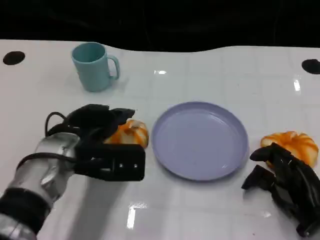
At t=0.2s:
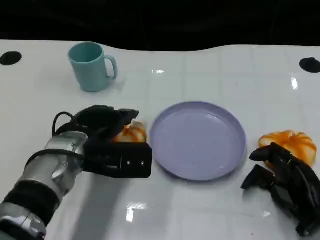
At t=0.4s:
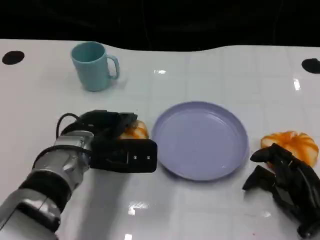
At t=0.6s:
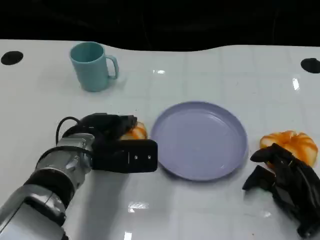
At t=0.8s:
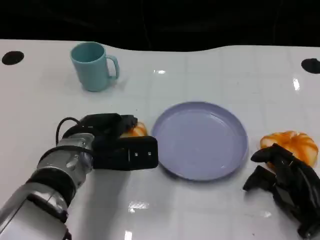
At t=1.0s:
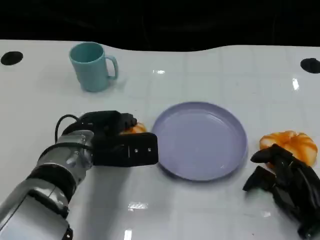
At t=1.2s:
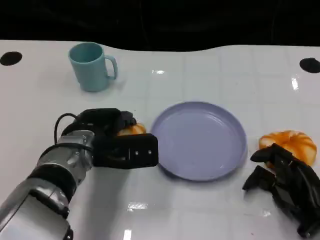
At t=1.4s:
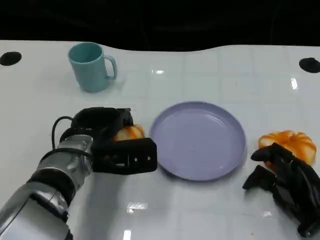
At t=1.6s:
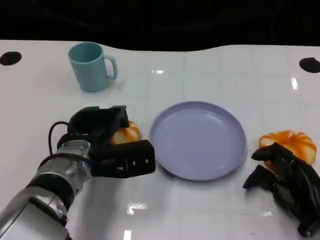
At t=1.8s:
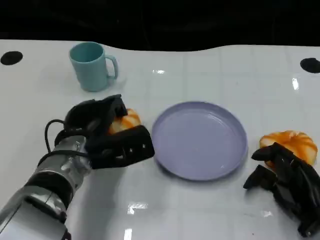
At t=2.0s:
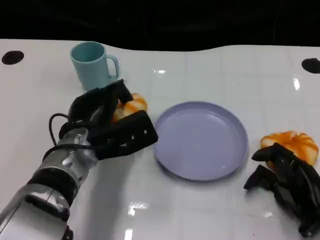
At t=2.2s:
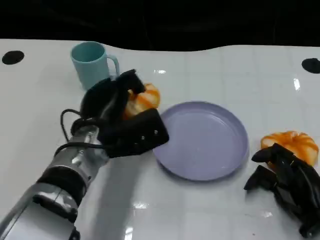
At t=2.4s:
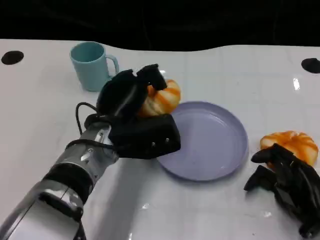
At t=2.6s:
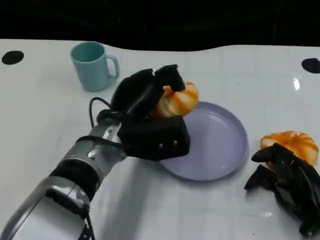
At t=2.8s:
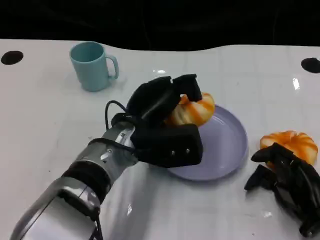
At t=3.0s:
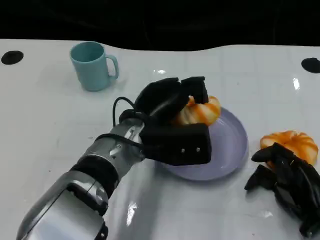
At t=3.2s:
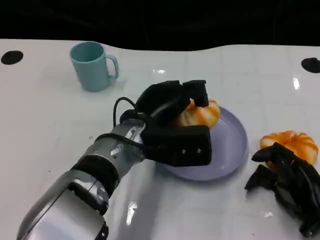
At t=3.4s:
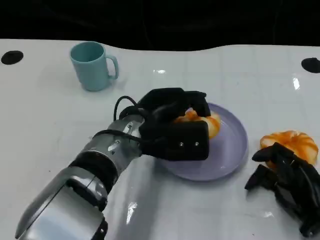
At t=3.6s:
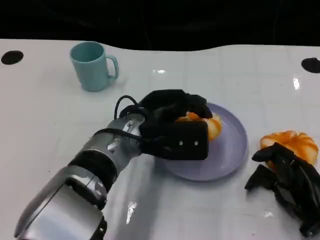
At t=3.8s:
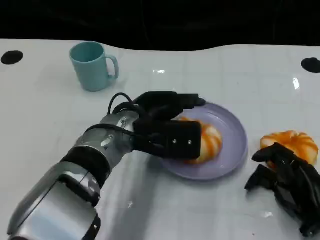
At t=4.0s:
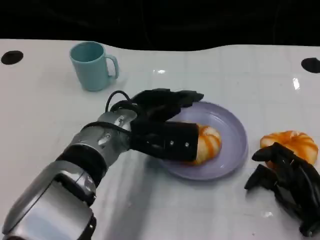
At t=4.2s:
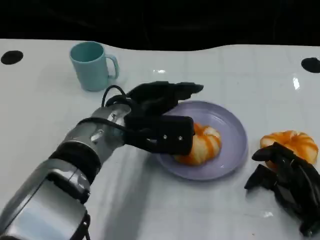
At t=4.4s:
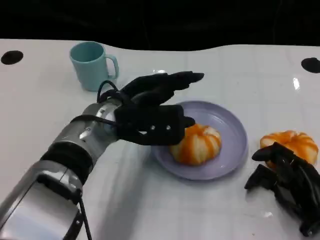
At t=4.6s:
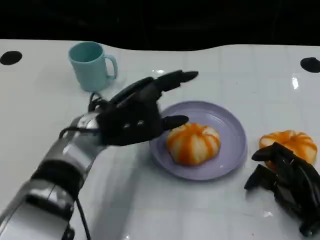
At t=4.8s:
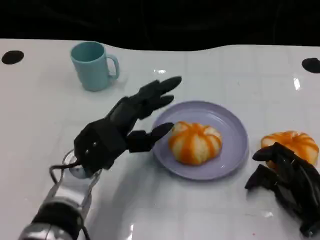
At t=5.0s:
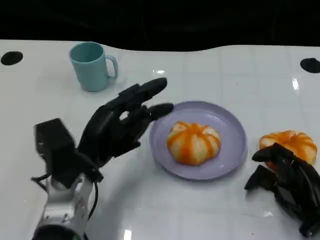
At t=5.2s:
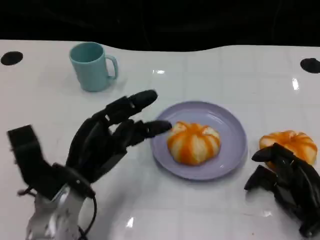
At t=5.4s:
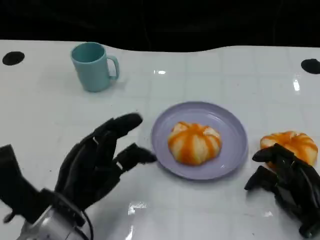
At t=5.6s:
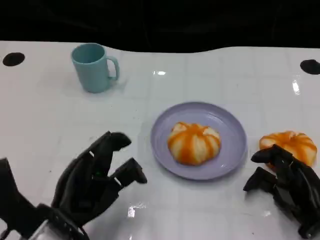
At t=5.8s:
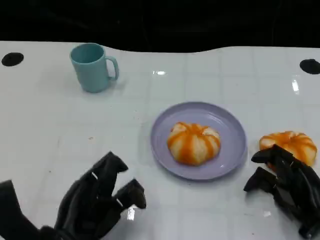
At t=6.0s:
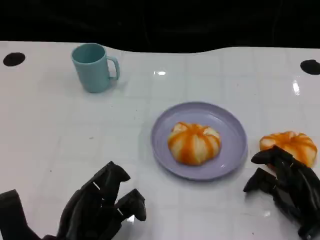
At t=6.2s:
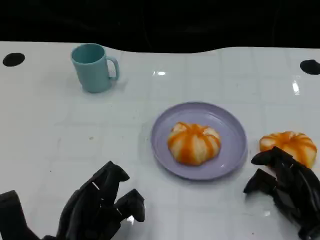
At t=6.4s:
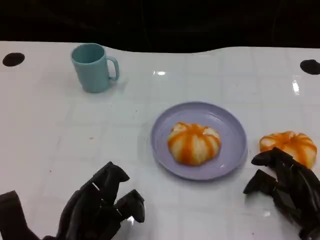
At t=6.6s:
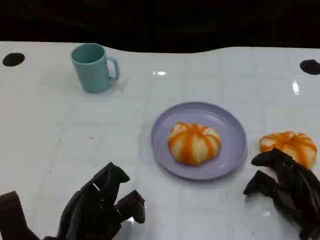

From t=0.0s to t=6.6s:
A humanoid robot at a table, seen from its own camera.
Task of the whole recording: Grasp the bread from the table and place it into the plate.
From t=0.0s to t=1.6s: The hands move only a little.
From t=1.6s to t=3.2s: The left hand moves to the right, roughly 10 cm.
From t=3.2s to t=5.0s: The left hand heads to the left, covering some 10 cm.
From t=5.0s to t=6.6s: The left hand travels backward by about 10 cm.

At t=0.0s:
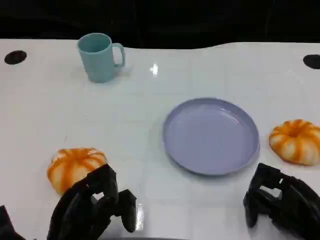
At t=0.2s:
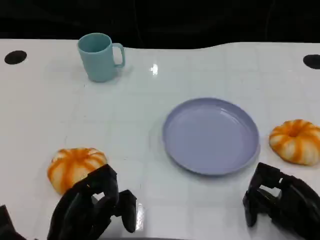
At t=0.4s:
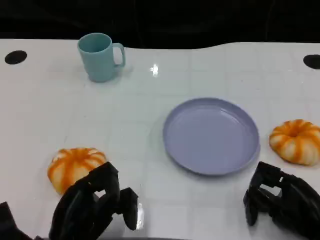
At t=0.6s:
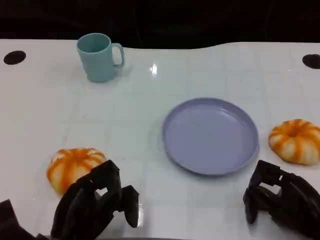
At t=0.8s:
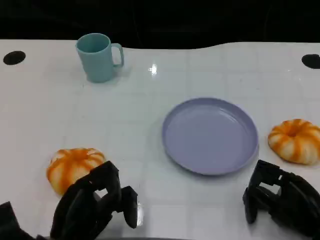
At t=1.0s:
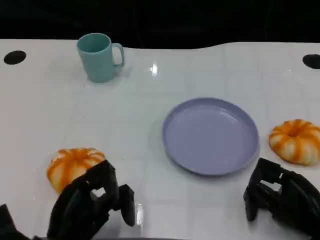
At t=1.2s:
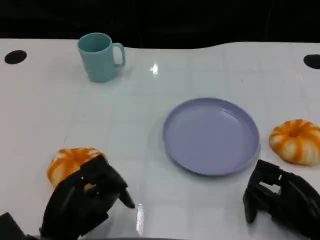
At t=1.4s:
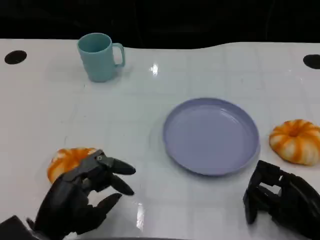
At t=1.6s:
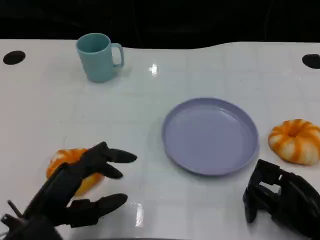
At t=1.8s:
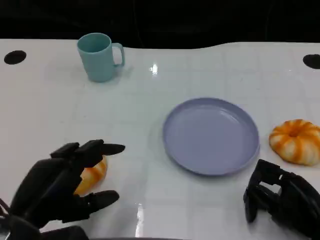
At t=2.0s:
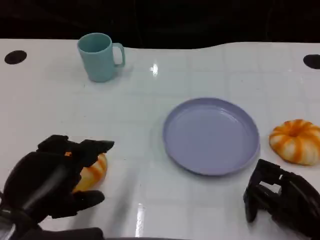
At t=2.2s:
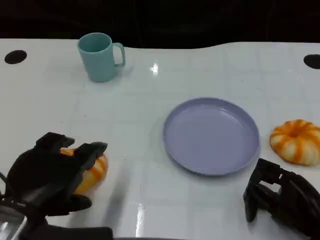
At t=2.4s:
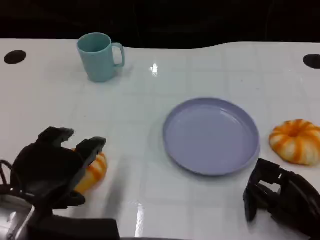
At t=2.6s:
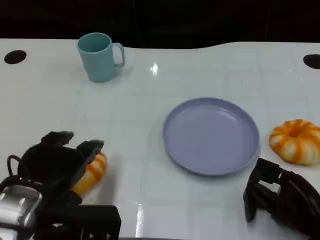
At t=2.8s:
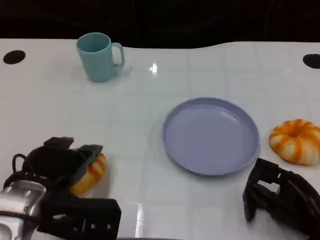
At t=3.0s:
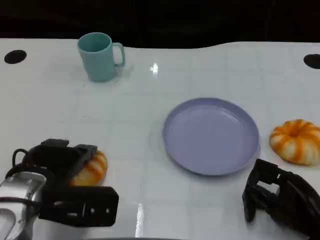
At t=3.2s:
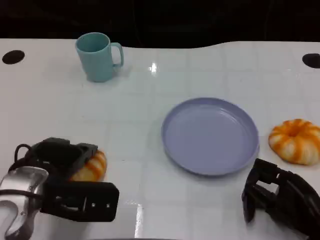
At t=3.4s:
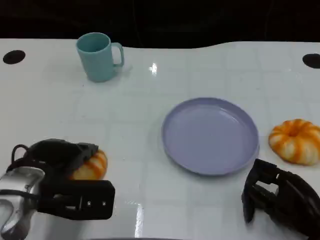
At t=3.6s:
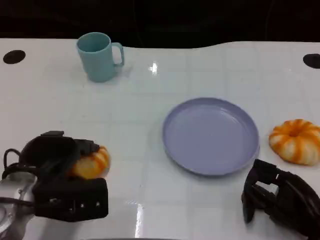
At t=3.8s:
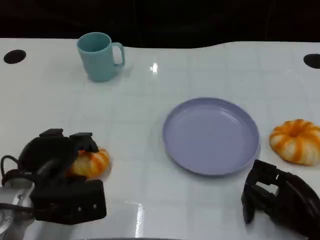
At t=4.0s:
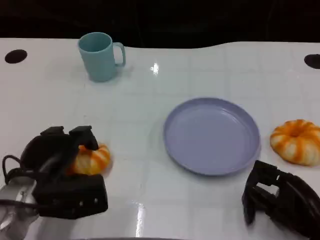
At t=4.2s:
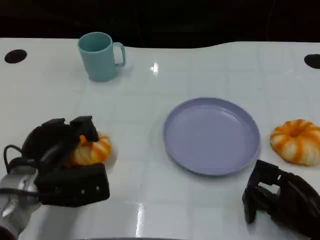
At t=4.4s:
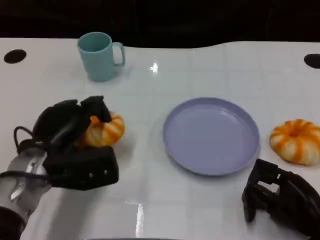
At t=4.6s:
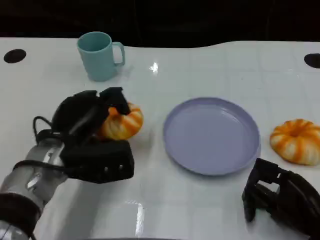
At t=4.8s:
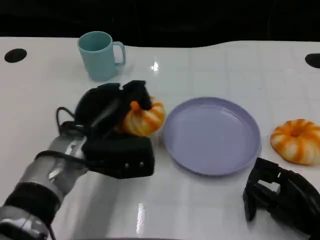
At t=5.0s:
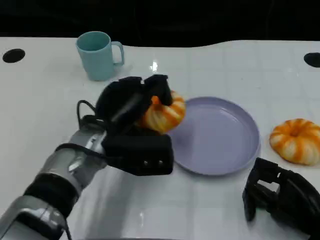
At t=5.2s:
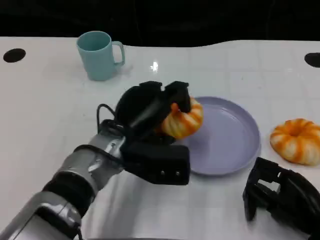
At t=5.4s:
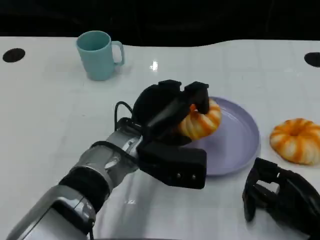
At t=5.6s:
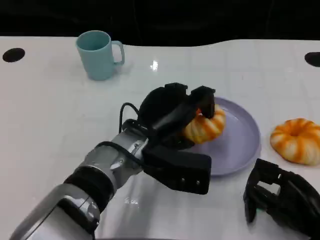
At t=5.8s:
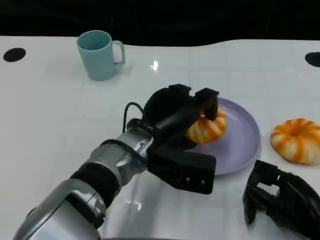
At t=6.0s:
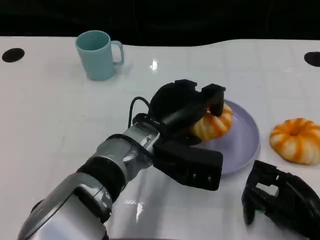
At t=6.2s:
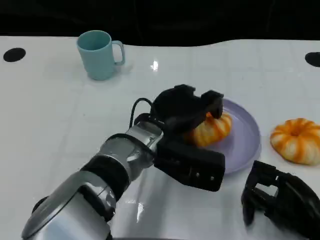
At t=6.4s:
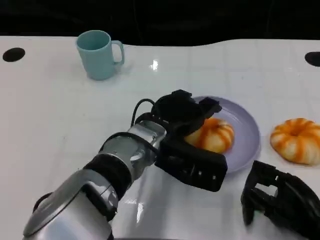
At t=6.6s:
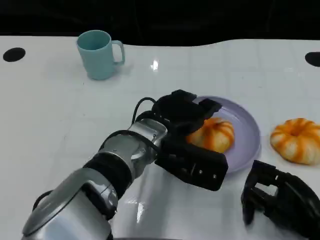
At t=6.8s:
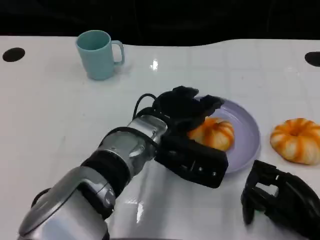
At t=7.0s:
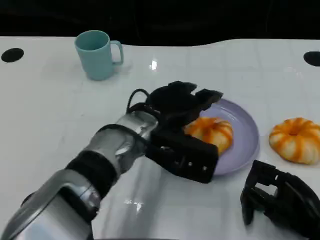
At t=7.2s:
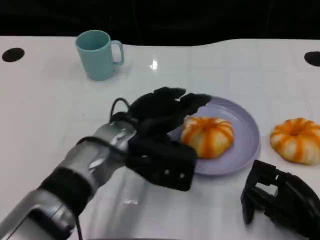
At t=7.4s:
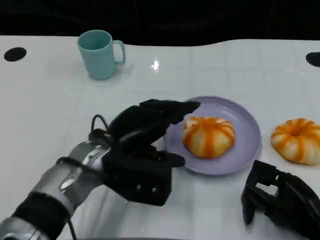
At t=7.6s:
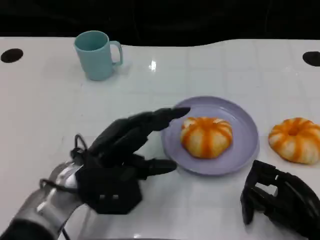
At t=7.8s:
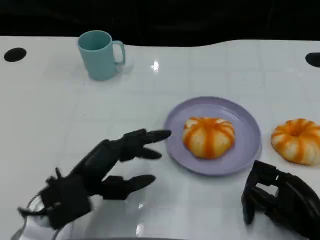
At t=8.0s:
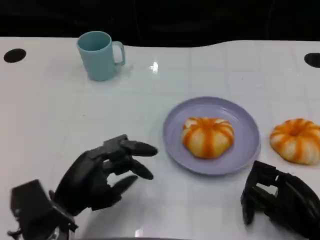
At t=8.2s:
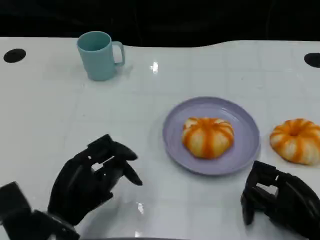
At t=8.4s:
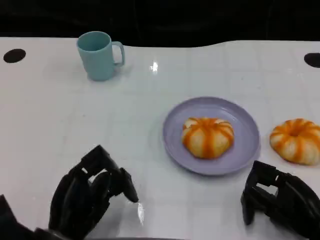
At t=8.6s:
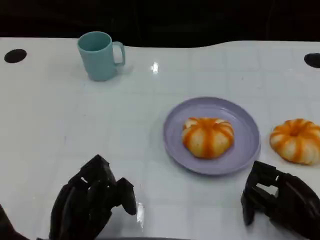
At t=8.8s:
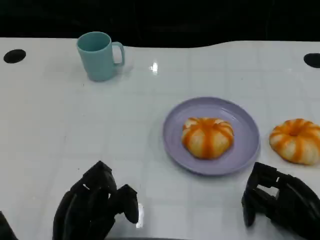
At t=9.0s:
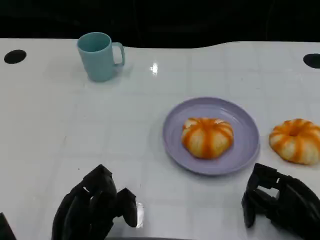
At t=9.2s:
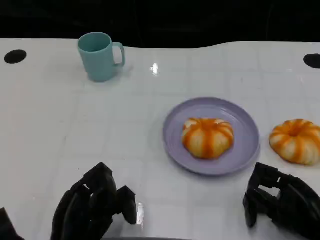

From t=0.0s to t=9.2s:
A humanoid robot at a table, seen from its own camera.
Task of the whole recording: Grasp the bread from the table and place it into the plate.
From t=0.0s to t=1.6s: The left hand shifts approximately 5 cm upward.
From t=1.6s to t=3.0s: The left hand is displaced forward by roughly 5 cm.
From t=3.0s to t=4.6s: The left hand moves forward, approximately 5 cm.
From t=4.6s to t=6.2s: The left hand shifts approximately 15 cm to the right.
From t=6.2s to t=7.6s: The left hand heads to the left, covering about 10 cm.
From t=7.6s to t=9.2s: The left hand is displaced backward and downward by roughly 10 cm.
